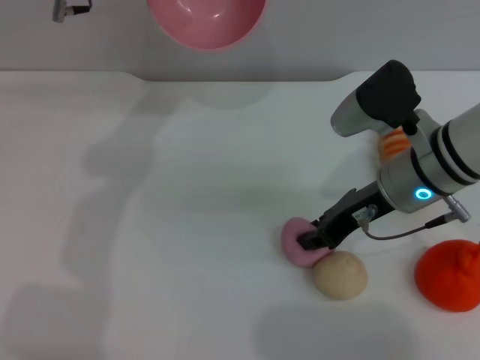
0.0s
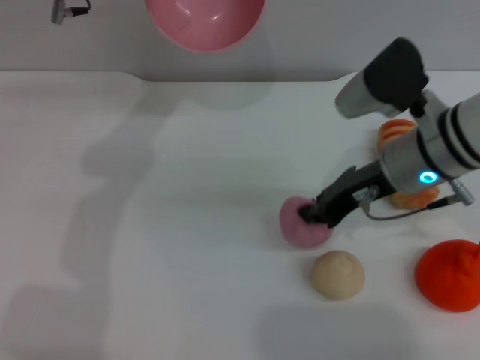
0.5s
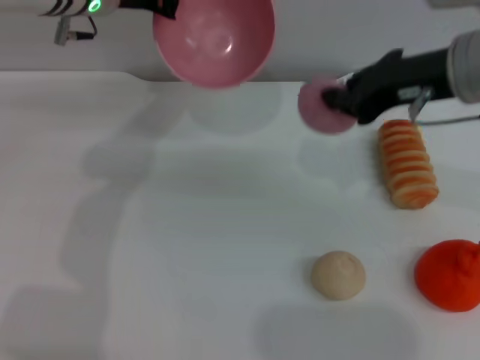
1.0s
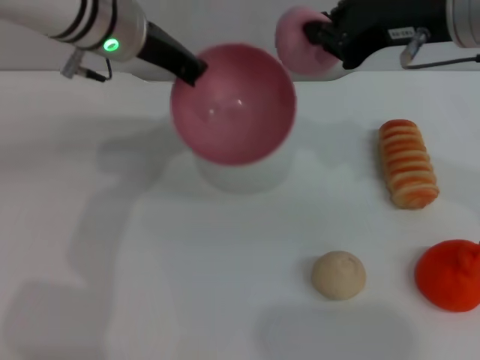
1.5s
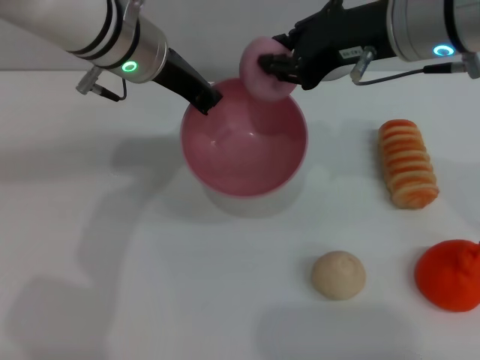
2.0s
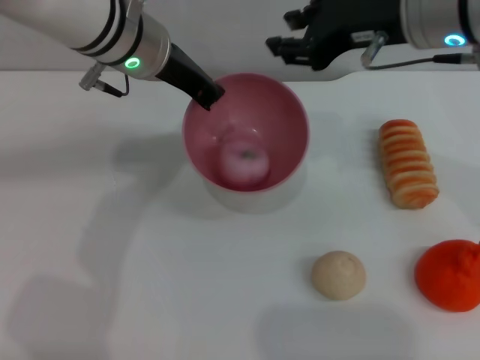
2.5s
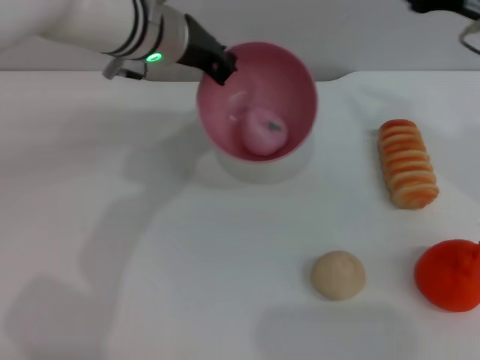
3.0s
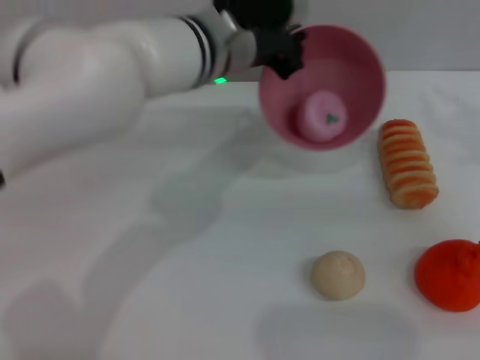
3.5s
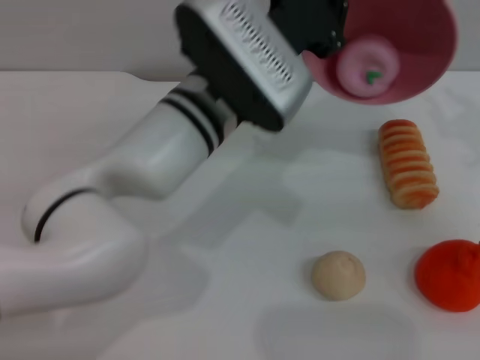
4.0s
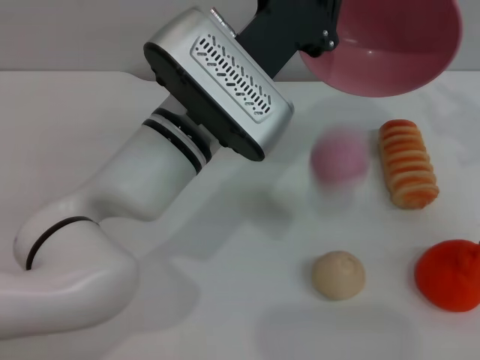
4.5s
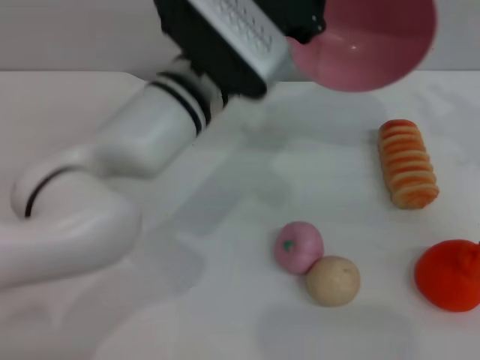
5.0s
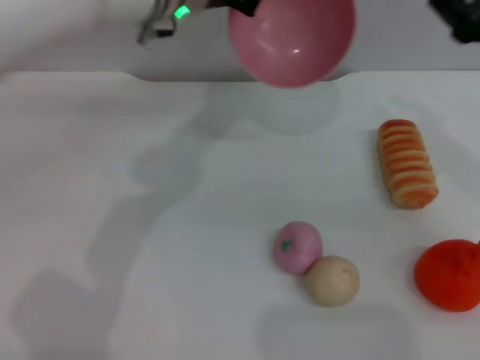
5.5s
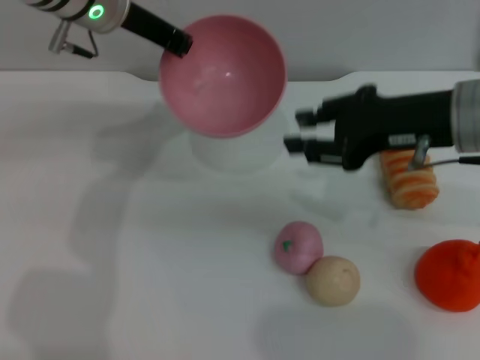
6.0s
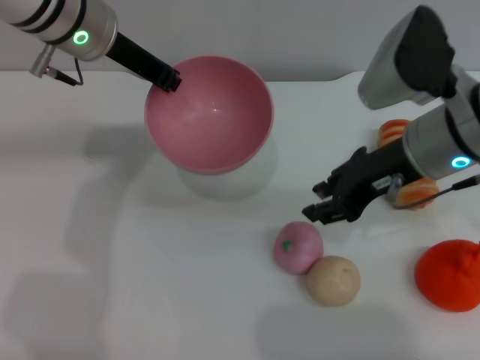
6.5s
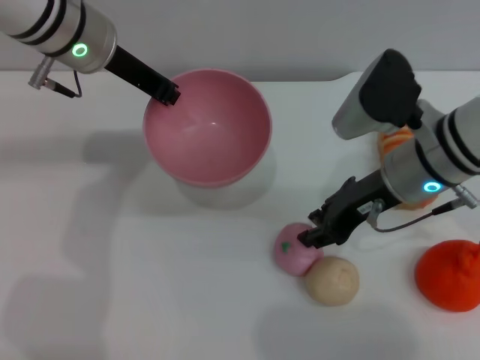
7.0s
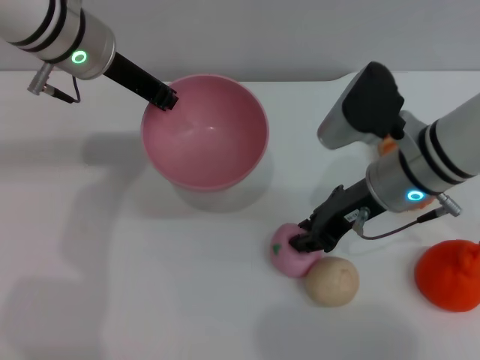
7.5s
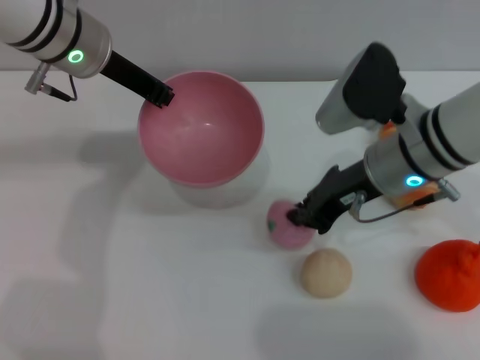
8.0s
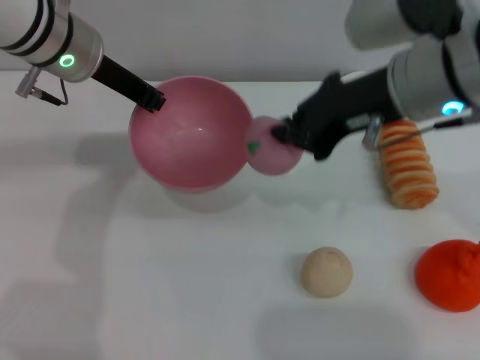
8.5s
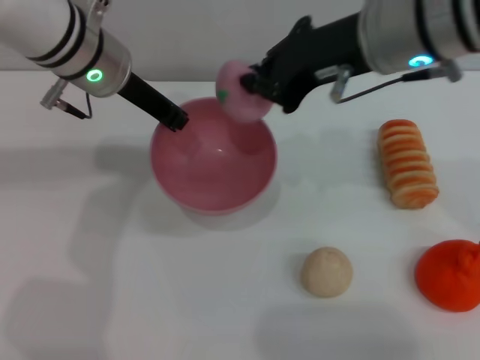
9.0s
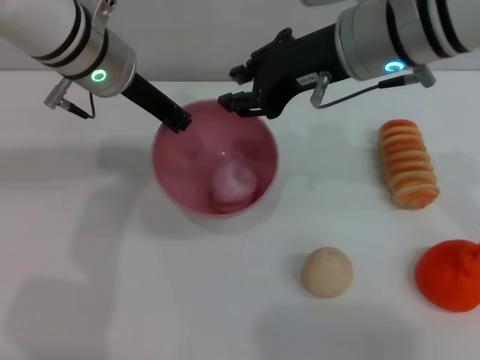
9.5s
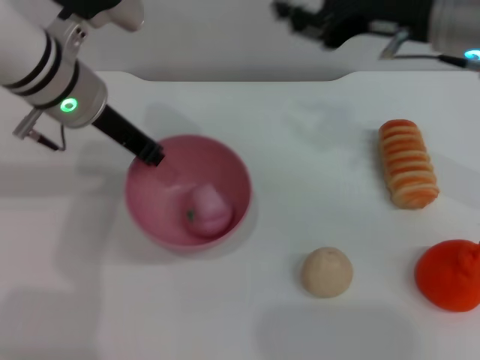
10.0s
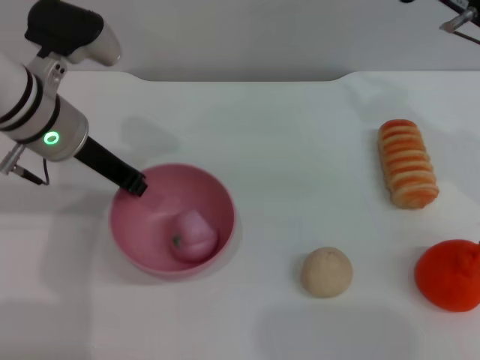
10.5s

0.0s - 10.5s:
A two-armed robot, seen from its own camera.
Task of the whole recording: put the peach into the pink bowl and pour it out repeatedly.
Step, 1.0s - 2.5s: Place the peach into the bowl.
Step, 3.0s - 4.5s: Pour the peach out of bowl.
Step, 5.0s - 8.0s: Pick up the peach with the right gripper.
Step, 8.5s - 9.5s: Place the peach into the bowl.
0.0s - 2.0s: The right gripper is displaced upward by some 15 cm, and closes, while the left gripper heads backward, covering about 5 cm.
2.0s - 4.0s: The right gripper shifts about 20 cm to the right and downward, and opens up. The left gripper is displaced to the right and backward by about 10 cm.
4.0s - 6.5s: The right gripper is displaced to the left by roughly 15 cm, while the left gripper is displaced to the left, forward and upward by about 15 cm.
6.5s - 8.5s: The right gripper travels upward by approximately 5 cm, and closes up.
8.5s - 10.5s: The left gripper heads downward, covering roughly 5 cm. The right gripper heads to the right, covering some 10 cm, and opens its fingers.

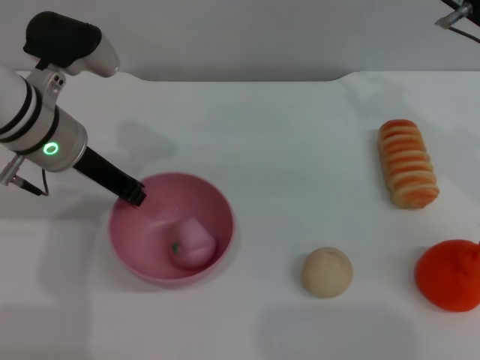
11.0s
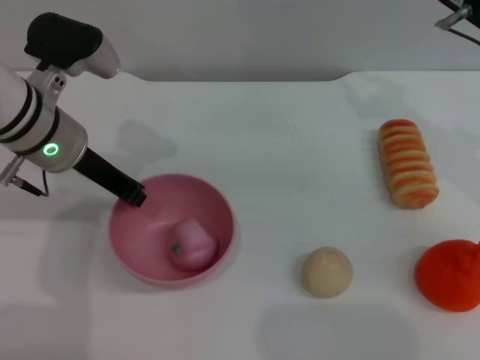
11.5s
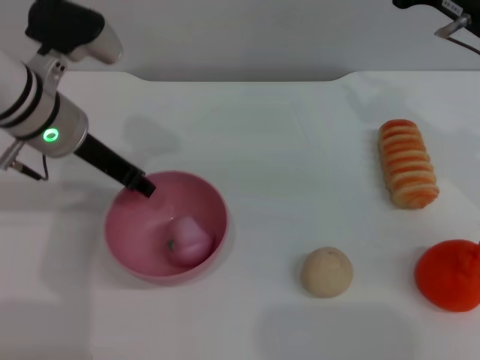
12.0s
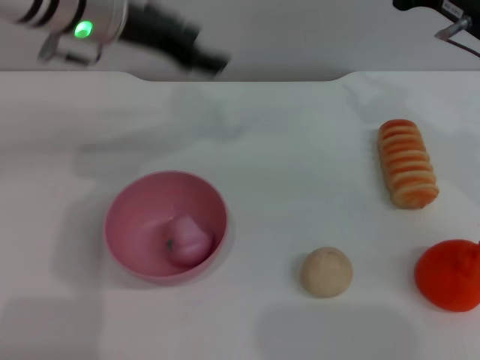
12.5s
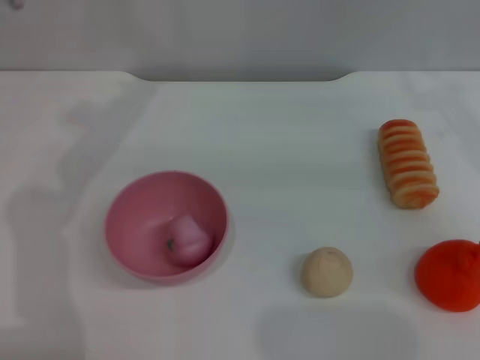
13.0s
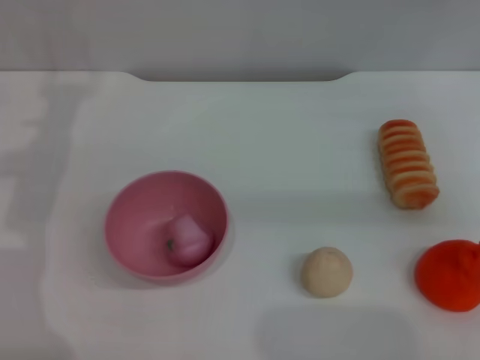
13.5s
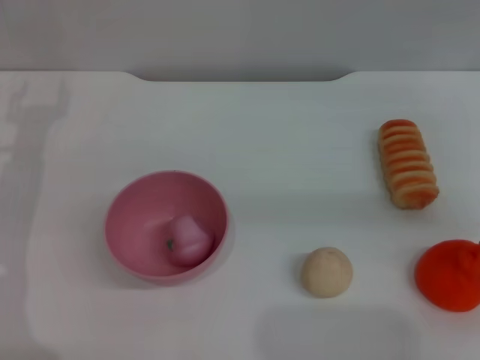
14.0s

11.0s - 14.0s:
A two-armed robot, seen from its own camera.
Task of the whole recording: put the peach into the pink bowl and pour it out repeatedly.
11.0s - 12.5s: The left gripper goes some 10 cm upward, and opens its fingers.
12.5s - 14.0s: The right gripper heads to the right, covering approximately 10 cm, while the left gripper moves to the left and downward, some 20 cm.

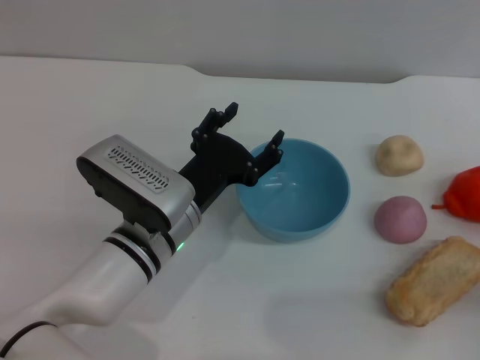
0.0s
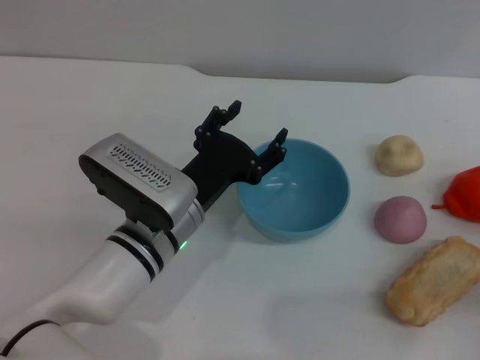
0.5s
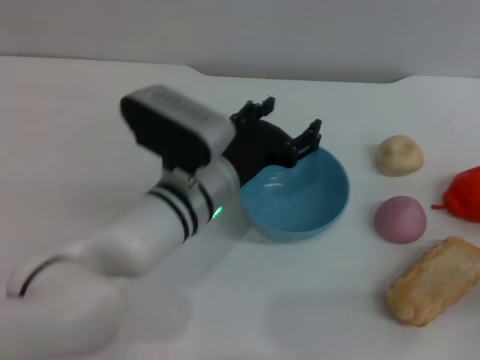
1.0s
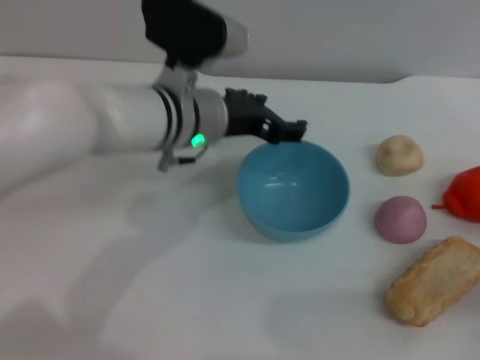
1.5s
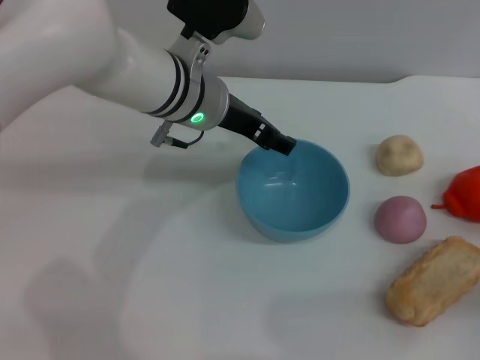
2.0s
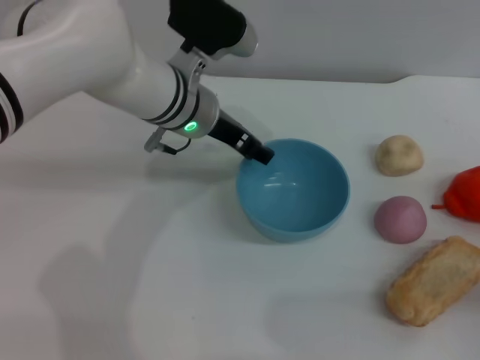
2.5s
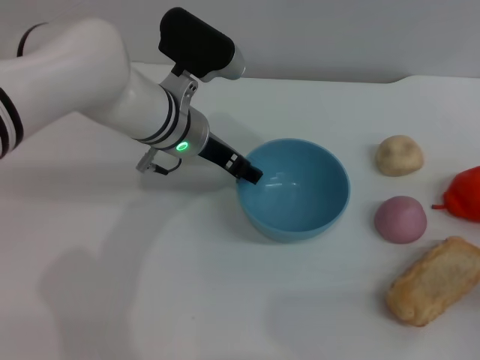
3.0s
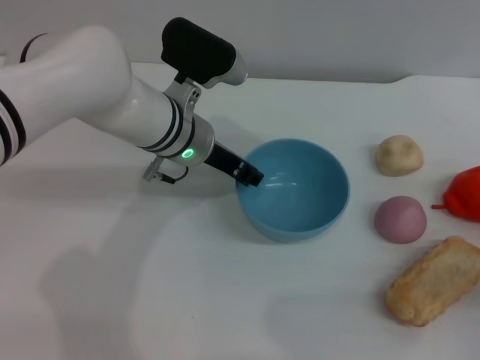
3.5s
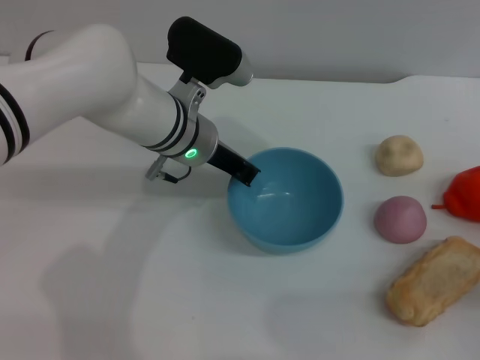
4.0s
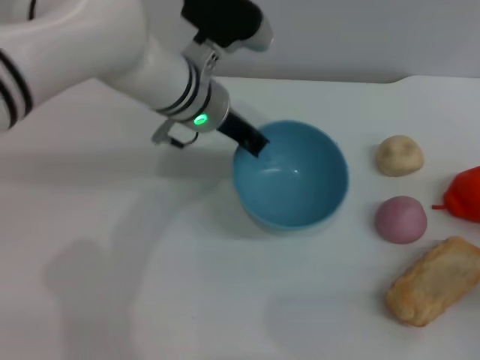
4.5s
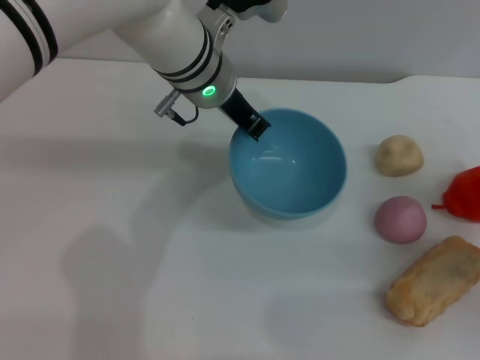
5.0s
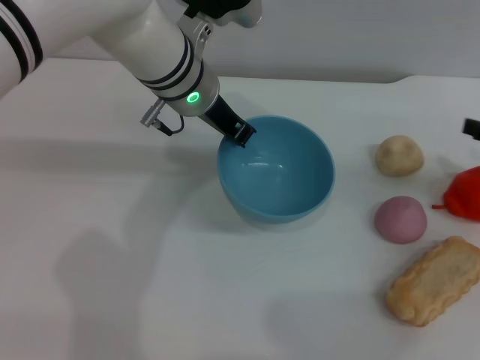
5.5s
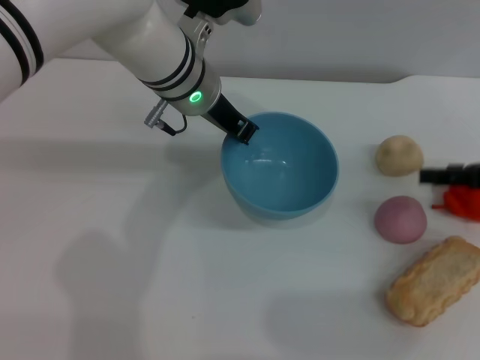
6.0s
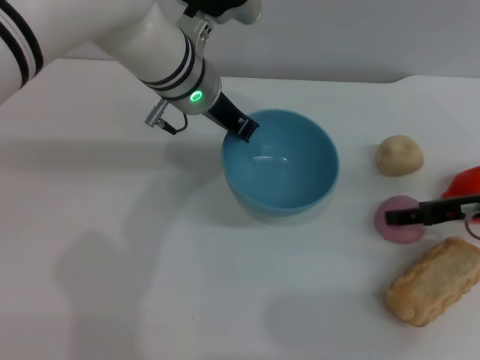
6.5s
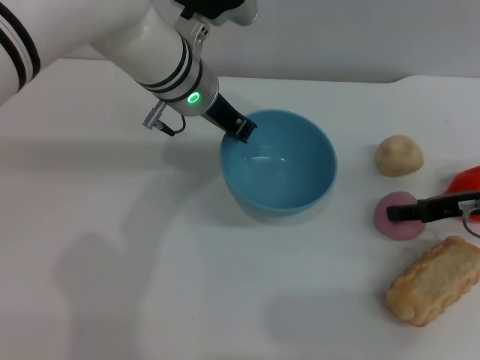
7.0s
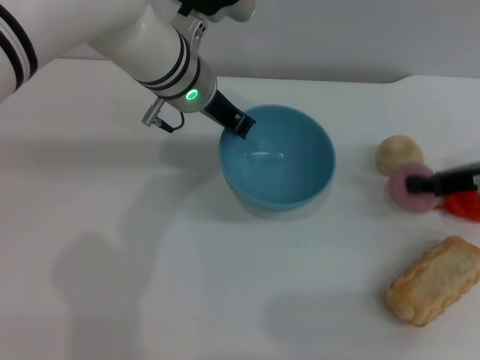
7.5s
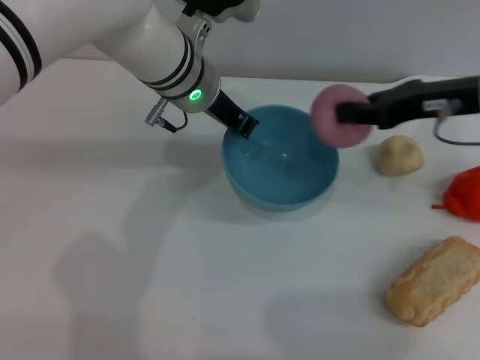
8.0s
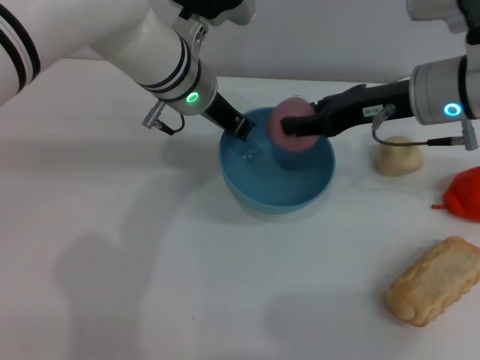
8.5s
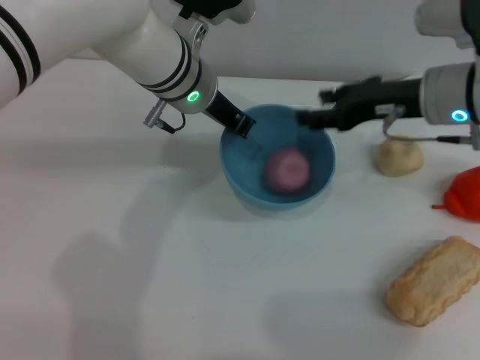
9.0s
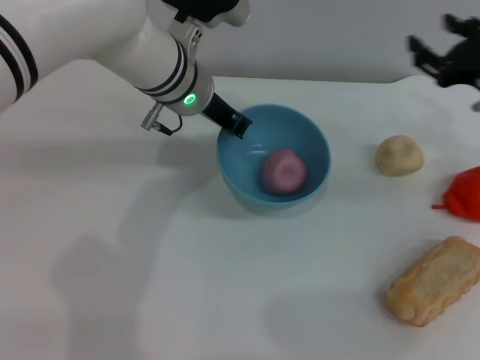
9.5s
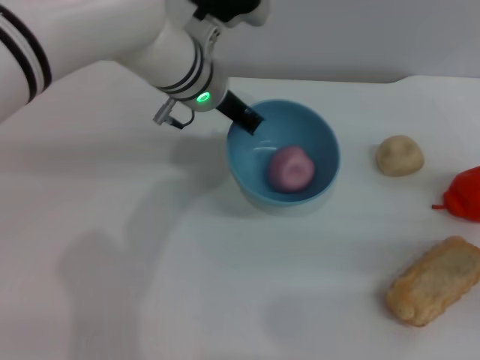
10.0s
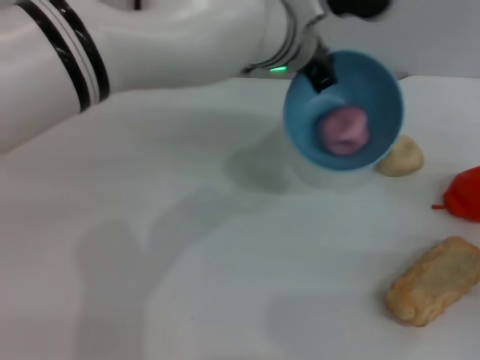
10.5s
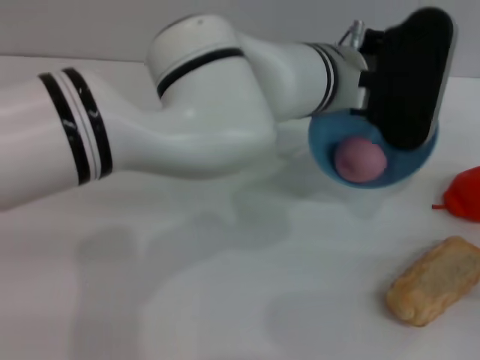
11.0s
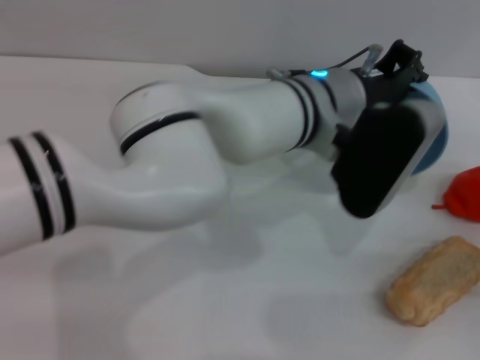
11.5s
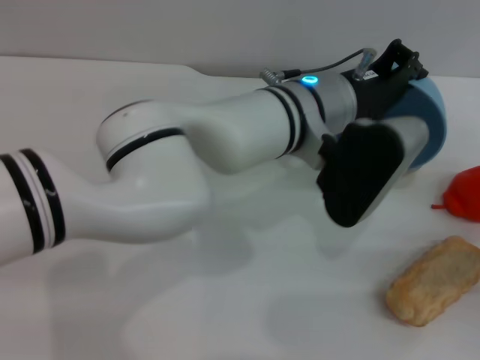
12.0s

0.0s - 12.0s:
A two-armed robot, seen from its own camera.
Task of the whole recording: put the peach into the blue bowl and pour it out repeatedly.
Step, 0.0s - 4.5s: Pick up the bowl with the left gripper.
Step, 5.0s - 7.0s: Pick up the peach with the right gripper.
Step, 7.5s - 9.0s: Place the peach into the bowl.
0.0s - 2.0s: The left gripper shifts roughly 15 cm forward and upward.
2.0s - 4.0s: The left gripper closes up.
4.0s - 6.0s: The right gripper is displaced upward and forward by about 15 cm, while the left gripper heads upward, covering roughly 5 cm.
6.0s - 8.0s: The right gripper moves to the left and upward, about 10 cm, and closes up.
8.0s - 10.0s: The right gripper goes roughly 20 cm to the right, downward and backward, and opens.
10.0s - 12.0s: The left gripper shifts about 10 cm to the right and backward.
